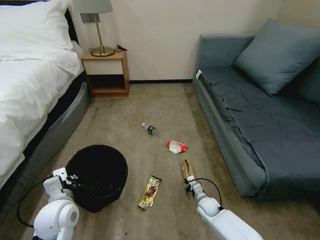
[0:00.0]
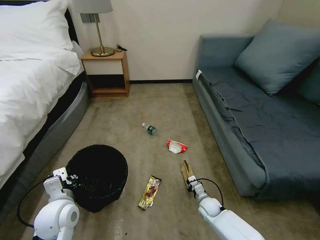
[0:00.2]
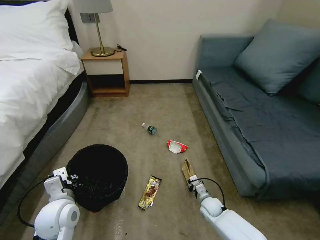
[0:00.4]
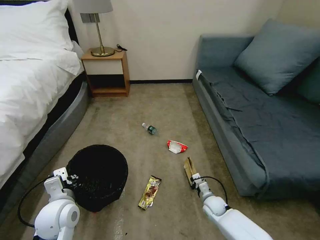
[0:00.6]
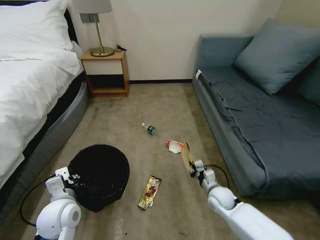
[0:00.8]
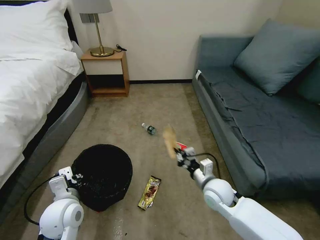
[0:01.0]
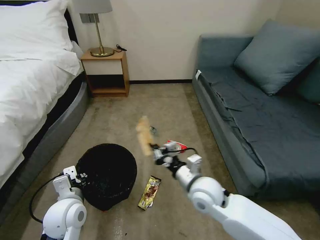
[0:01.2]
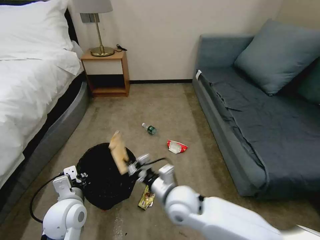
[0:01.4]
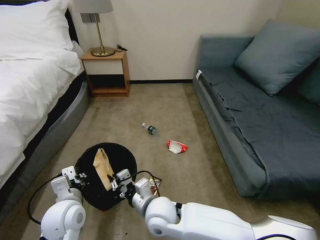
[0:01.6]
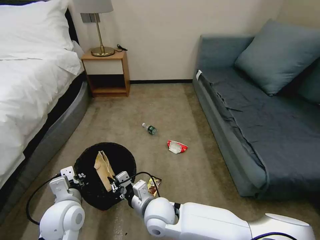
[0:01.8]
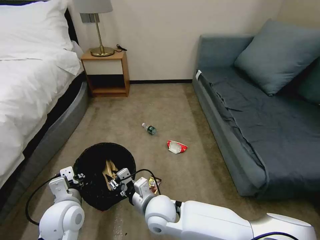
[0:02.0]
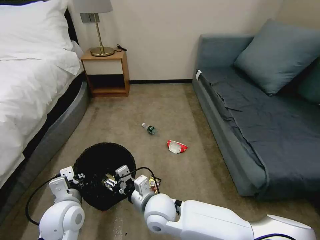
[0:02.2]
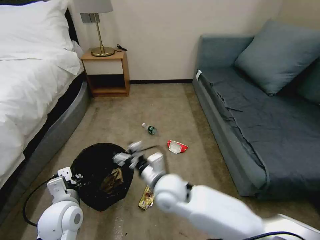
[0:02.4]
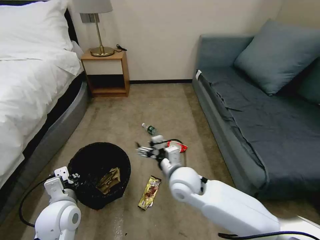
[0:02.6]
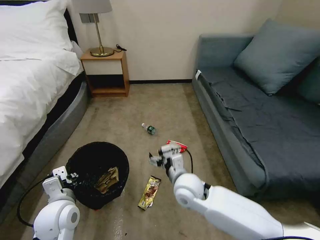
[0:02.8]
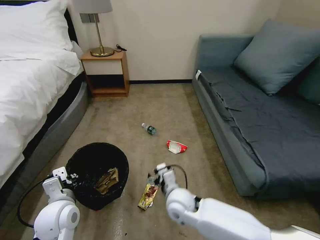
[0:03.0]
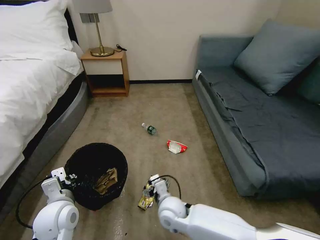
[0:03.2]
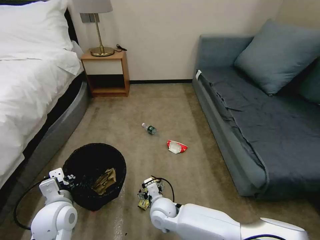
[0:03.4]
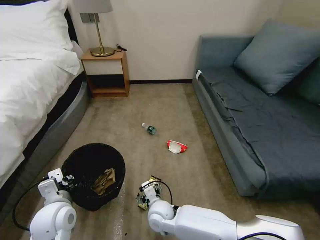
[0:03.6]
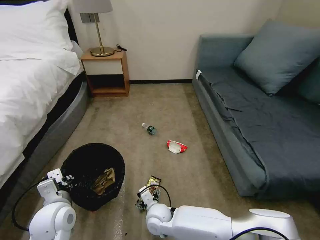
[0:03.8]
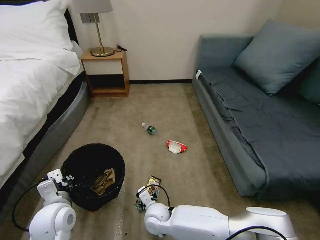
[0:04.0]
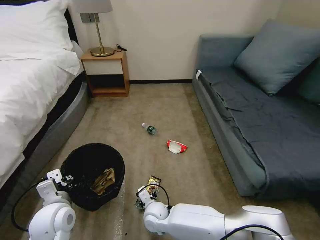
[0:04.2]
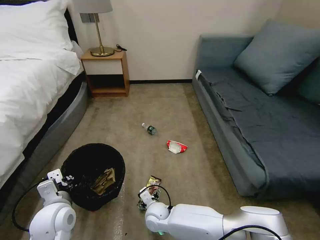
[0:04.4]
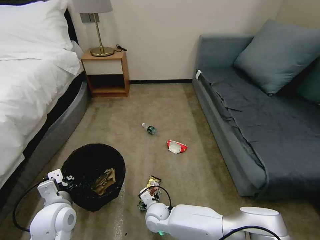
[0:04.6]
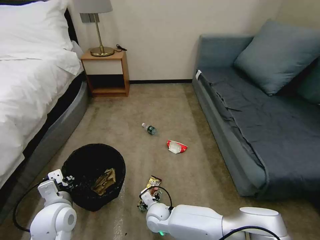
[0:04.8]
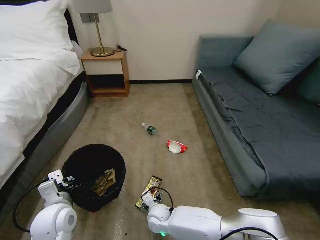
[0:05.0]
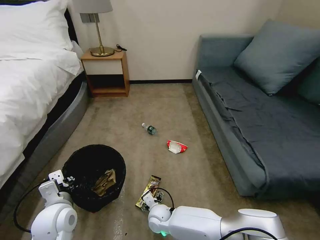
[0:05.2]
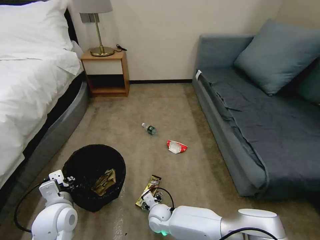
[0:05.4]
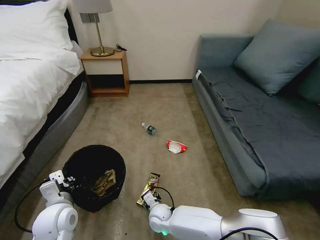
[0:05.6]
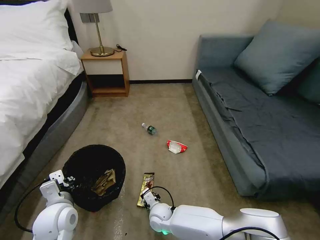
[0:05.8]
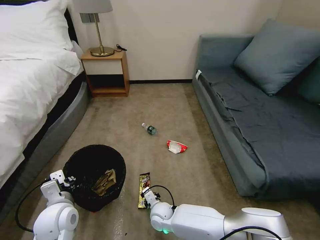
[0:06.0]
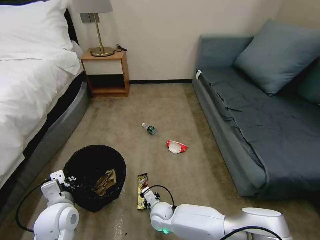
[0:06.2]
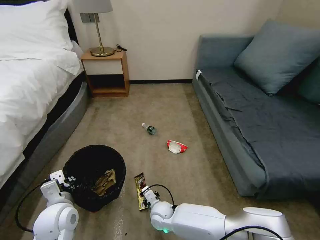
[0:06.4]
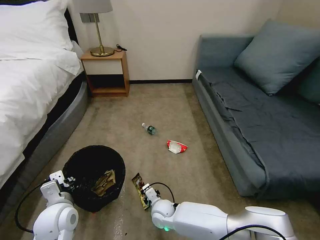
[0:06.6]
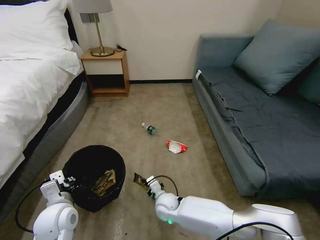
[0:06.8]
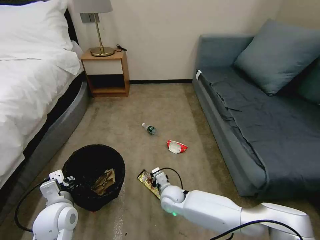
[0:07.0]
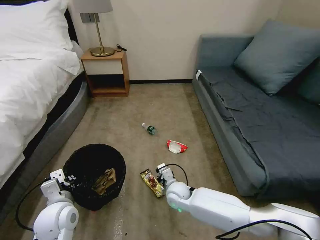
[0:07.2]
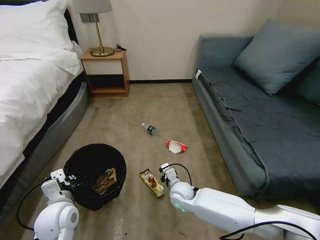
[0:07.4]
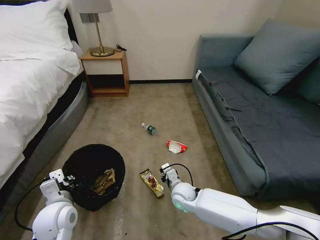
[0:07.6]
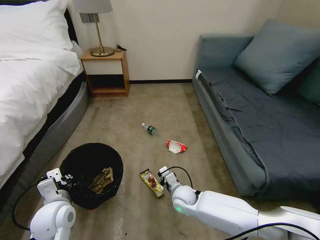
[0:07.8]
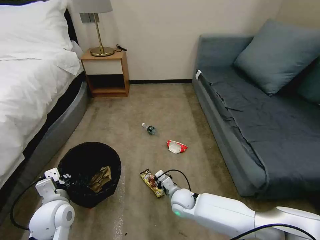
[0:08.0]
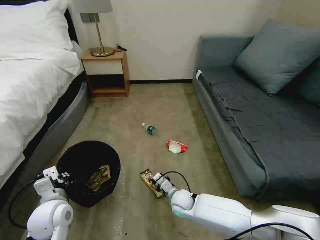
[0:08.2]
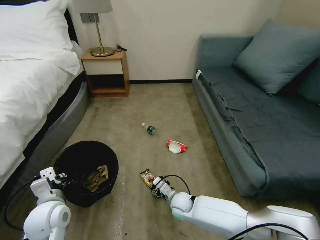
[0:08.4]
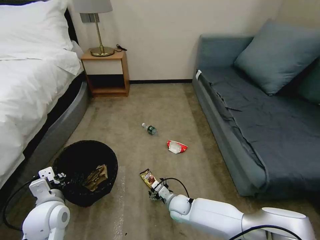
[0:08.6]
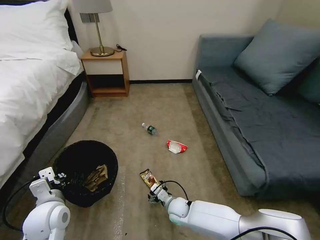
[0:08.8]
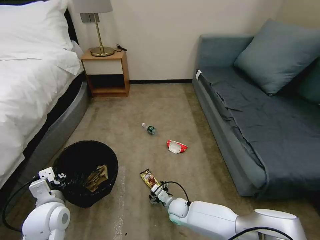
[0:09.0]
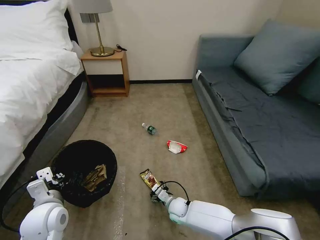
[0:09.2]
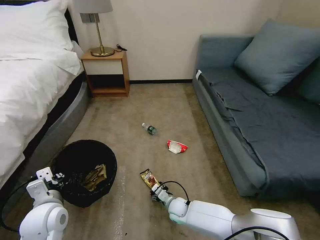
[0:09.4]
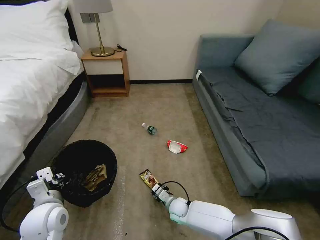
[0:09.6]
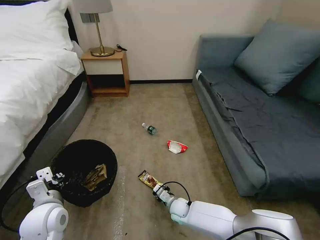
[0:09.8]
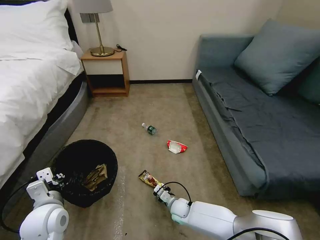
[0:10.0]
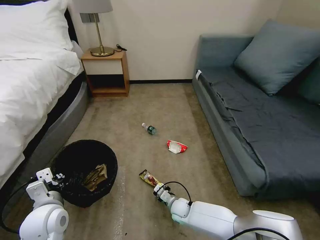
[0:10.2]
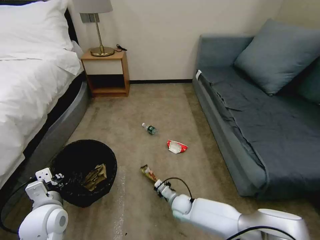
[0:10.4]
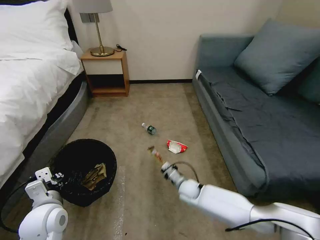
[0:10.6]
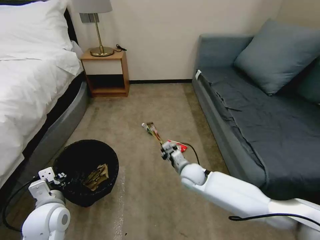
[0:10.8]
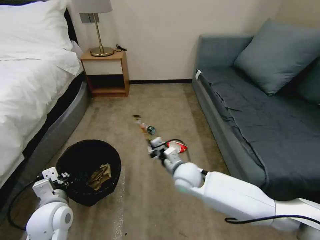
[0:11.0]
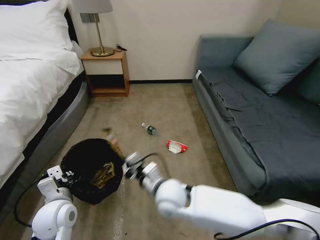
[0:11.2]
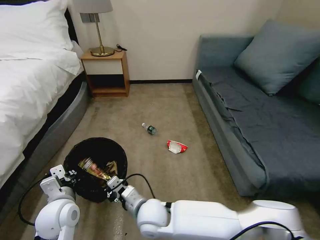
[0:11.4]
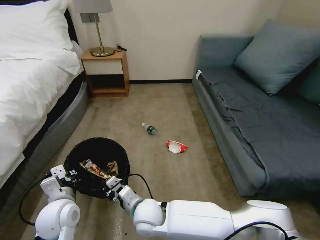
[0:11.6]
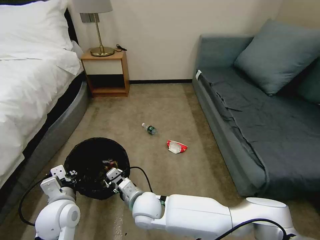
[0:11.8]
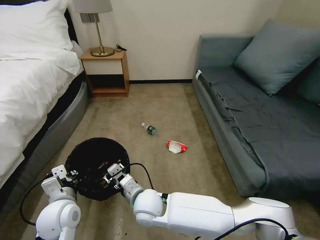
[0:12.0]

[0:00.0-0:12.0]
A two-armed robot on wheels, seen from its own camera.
Task of the whole recording: Pick up the trash bin, then pick up the garbage on the floor and place it into the trash bin.
0:00.0 to 0:01.6: The right gripper travels upward and to the left by some 30 cm.
0:01.6 to 0:03.0: The right gripper heads to the right, covering about 5 cm, and opens.
0:03.0 to 0:04.4: The right gripper moves downward and to the left, some 15 cm.
0:04.4 to 0:06.0: The right gripper closes its fingers.
0:06.0 to 0:07.6: The right gripper moves to the right, upward and forward, approximately 10 cm.
0:07.6 to 0:09.0: The right gripper travels downward by roughly 10 cm, and opens.
0:09.0 to 0:10.4: The right gripper closes its fingers.
0:10.4 to 0:12.0: The right gripper travels upward and to the left by approximately 25 cm, and opens its fingers.

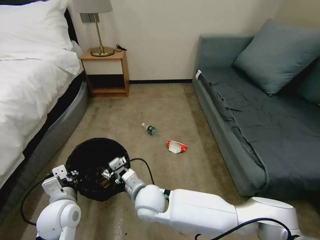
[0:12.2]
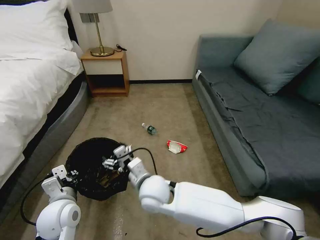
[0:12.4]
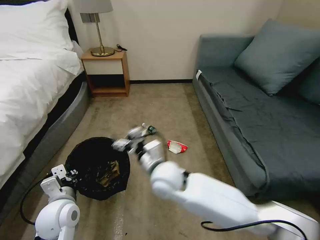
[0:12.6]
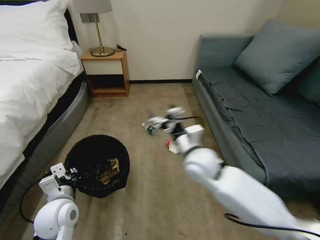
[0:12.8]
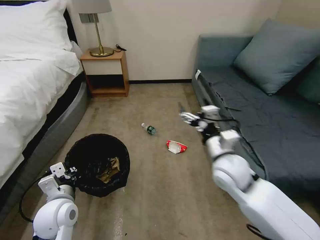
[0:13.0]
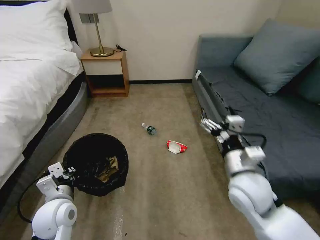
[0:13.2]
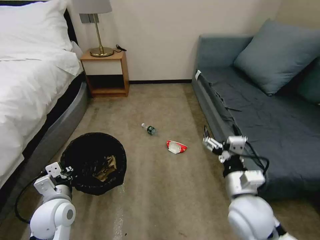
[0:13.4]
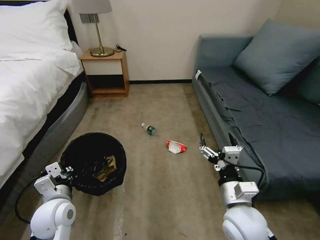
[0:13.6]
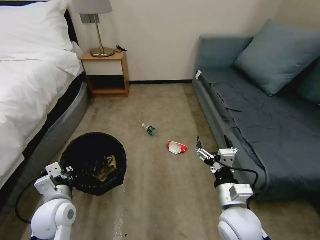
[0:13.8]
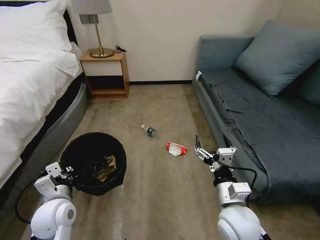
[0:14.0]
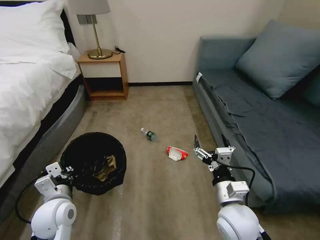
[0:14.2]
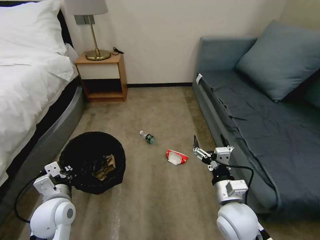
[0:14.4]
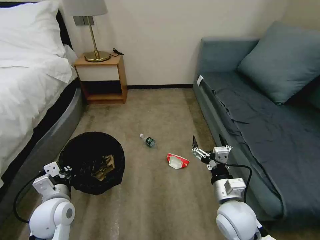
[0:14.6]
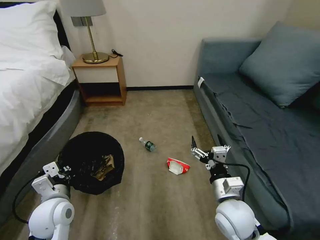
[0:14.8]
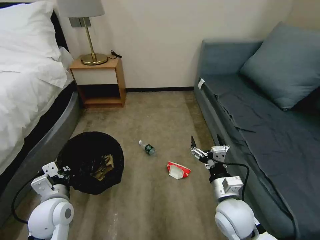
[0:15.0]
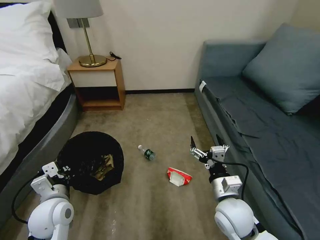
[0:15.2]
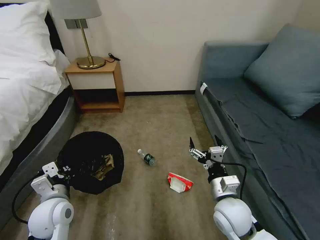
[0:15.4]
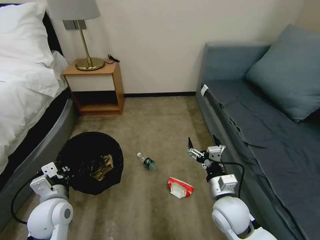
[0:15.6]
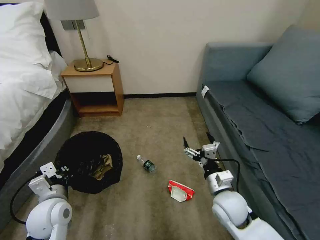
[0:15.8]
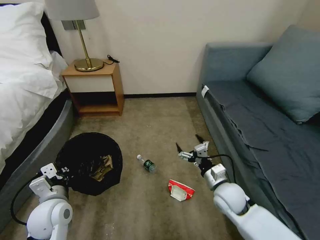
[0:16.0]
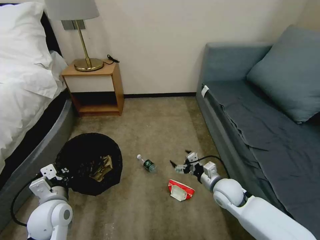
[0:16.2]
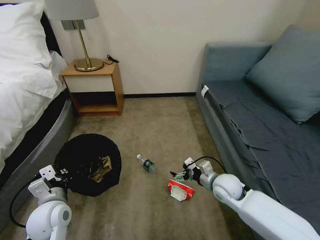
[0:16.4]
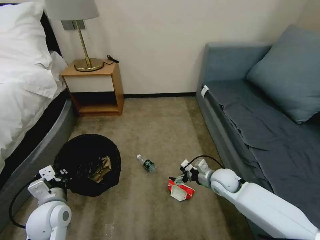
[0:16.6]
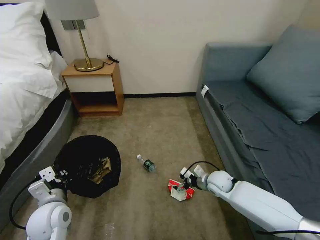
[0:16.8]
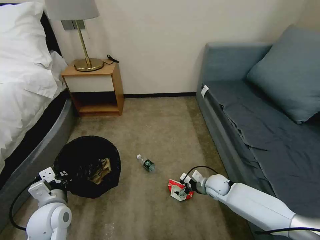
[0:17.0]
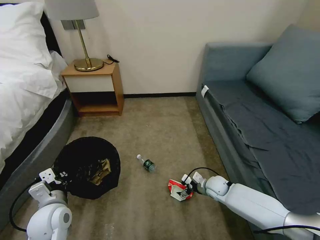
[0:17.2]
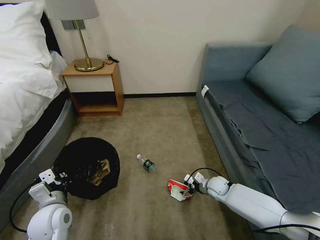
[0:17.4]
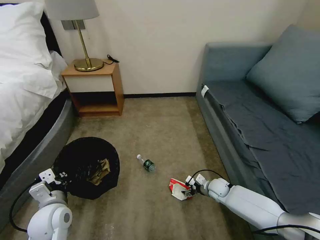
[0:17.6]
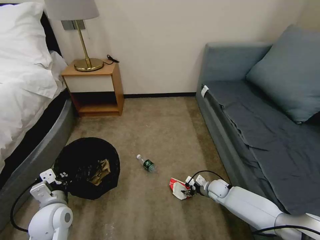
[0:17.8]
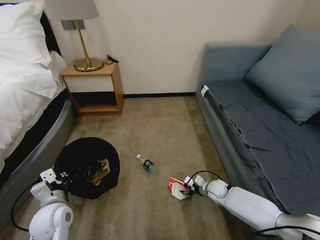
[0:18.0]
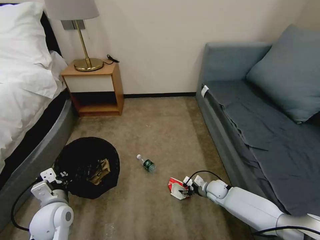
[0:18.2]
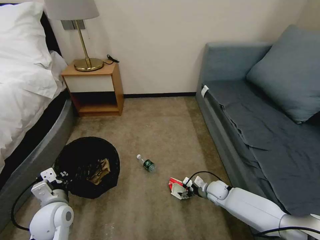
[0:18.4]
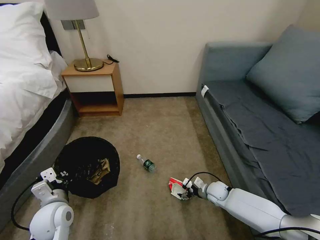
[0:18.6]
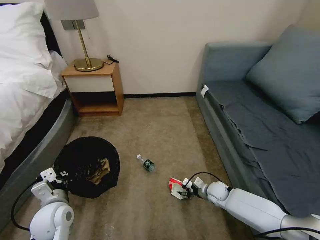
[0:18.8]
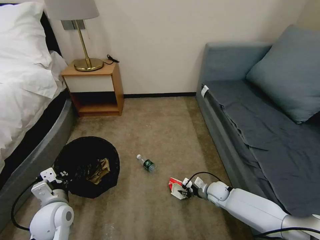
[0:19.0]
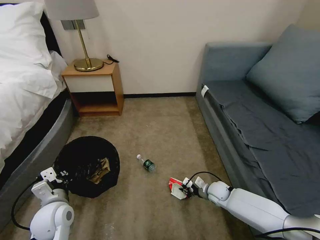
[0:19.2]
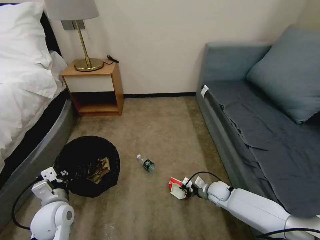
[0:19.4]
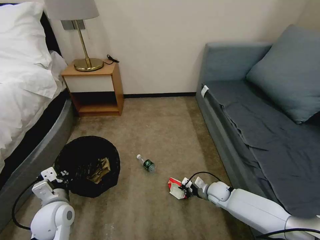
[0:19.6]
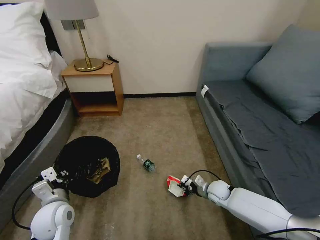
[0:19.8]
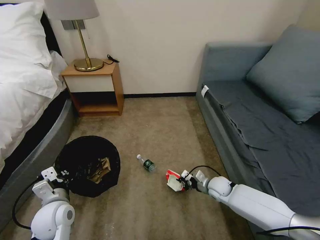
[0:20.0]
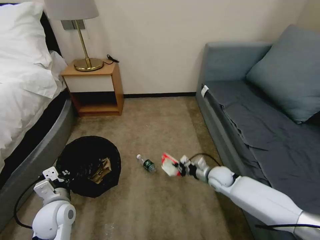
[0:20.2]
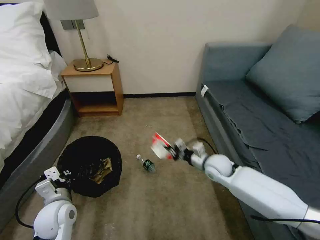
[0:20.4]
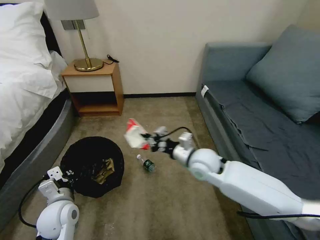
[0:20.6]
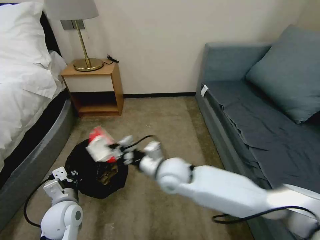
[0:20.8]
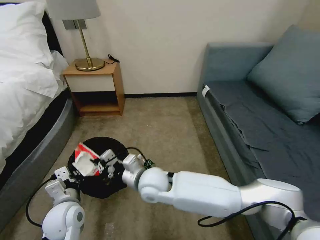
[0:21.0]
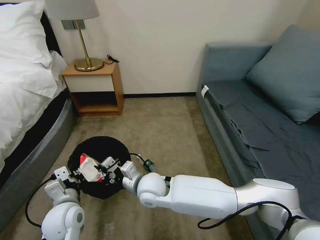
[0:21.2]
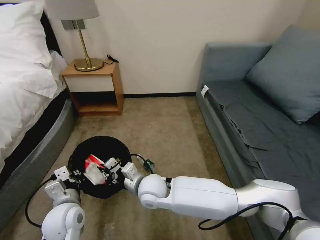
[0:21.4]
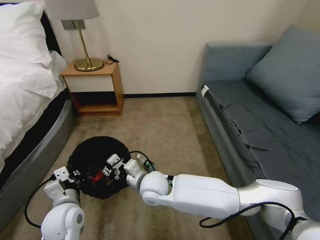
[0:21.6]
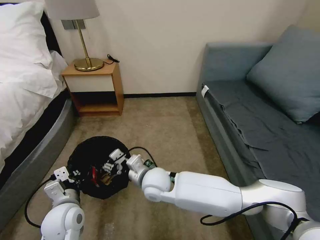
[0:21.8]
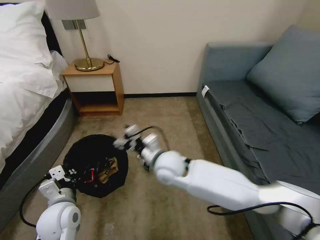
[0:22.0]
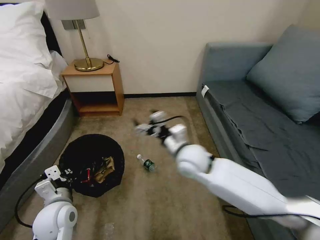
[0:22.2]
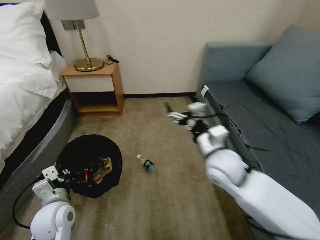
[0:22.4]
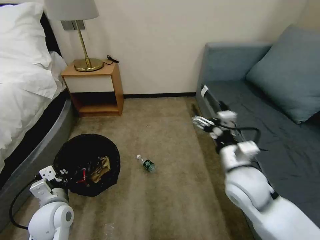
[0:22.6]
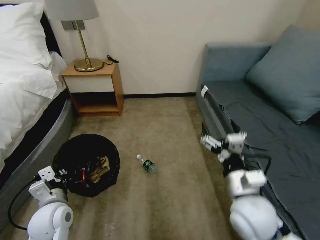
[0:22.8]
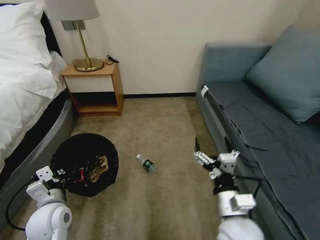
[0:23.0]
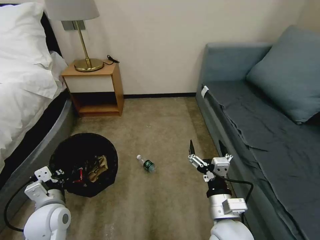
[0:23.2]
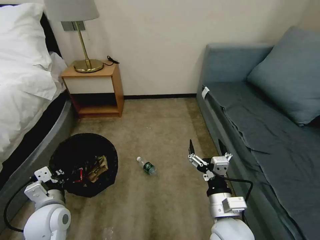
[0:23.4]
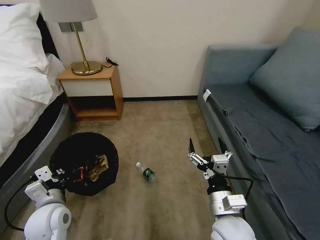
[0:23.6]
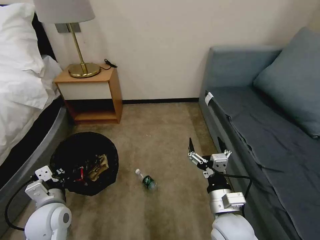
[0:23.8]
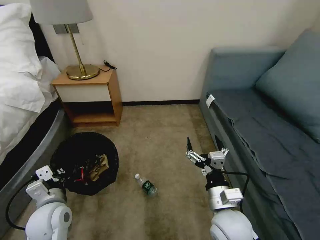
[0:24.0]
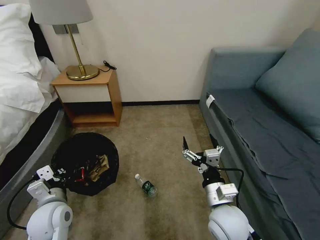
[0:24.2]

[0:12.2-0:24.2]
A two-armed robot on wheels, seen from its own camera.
Task of the whole recording: Pick up the trash bin, then pick up the garbage on the floor and place it into the trash bin.
0:12.2 to 0:13.8: The right gripper goes some 25 cm to the right.
0:15.2 to 0:16.6: The right gripper shifts roughly 15 cm forward and downward.
0:16.6 to 0:18.2: The right gripper moves downward, about 15 cm.
0:18.2 to 0:19.8: The right gripper closes.
0:19.8 to 0:21.2: The right gripper heads to the left and upward, covering roughly 35 cm.
0:21.2 to 0:22.6: The right gripper moves to the right and upward, roughly 25 cm, and opens.
0:22.6 to 0:24.2: The right gripper travels downward and backward by about 10 cm.
